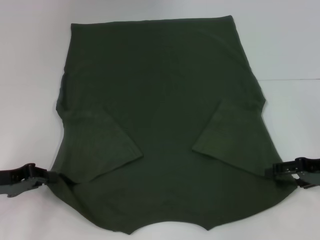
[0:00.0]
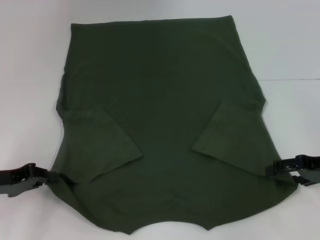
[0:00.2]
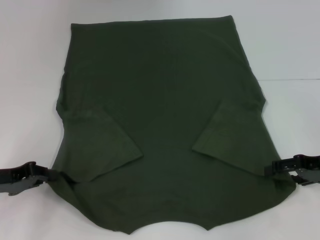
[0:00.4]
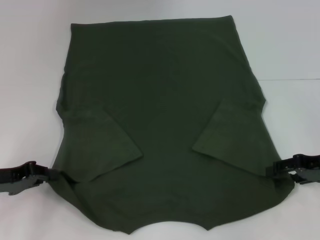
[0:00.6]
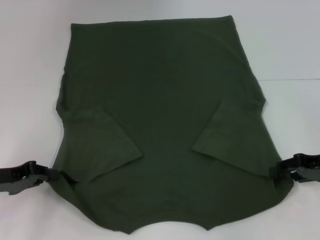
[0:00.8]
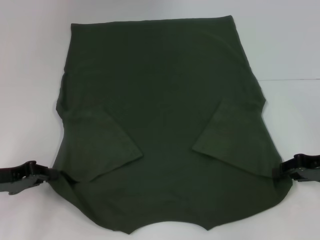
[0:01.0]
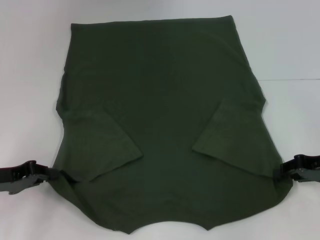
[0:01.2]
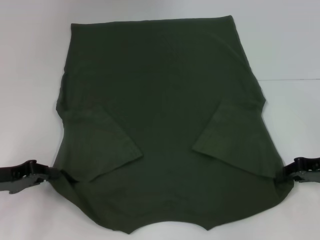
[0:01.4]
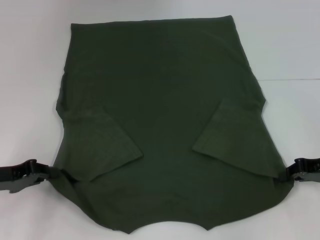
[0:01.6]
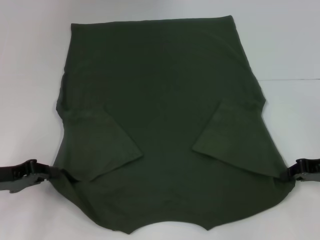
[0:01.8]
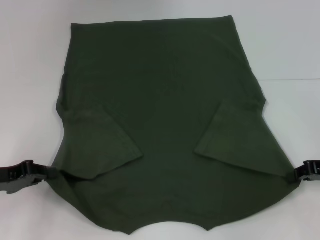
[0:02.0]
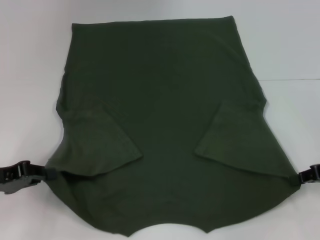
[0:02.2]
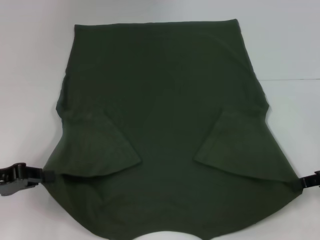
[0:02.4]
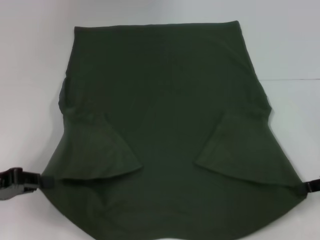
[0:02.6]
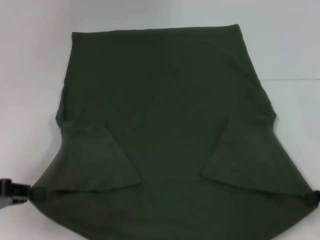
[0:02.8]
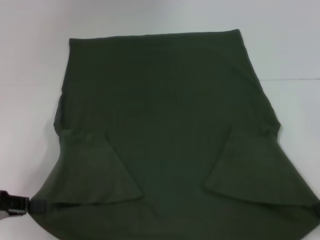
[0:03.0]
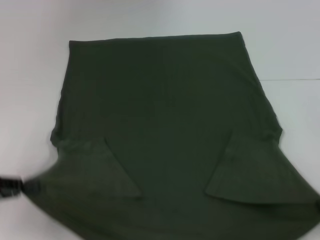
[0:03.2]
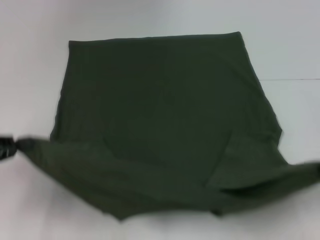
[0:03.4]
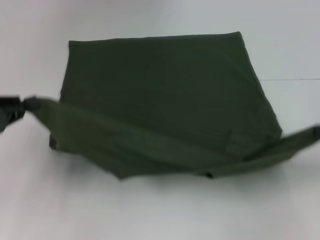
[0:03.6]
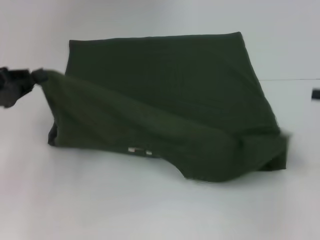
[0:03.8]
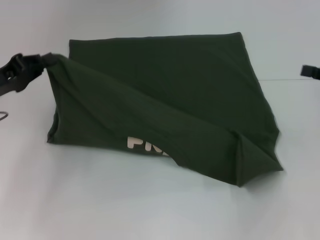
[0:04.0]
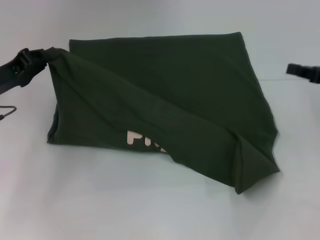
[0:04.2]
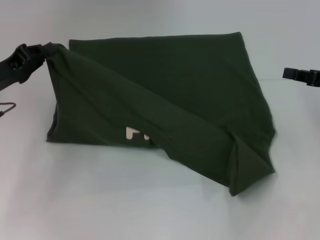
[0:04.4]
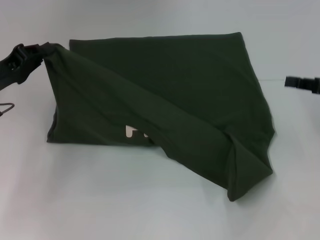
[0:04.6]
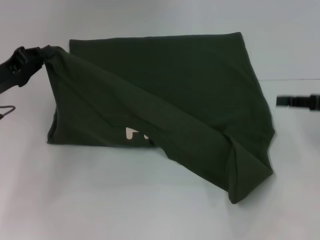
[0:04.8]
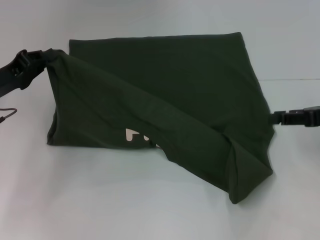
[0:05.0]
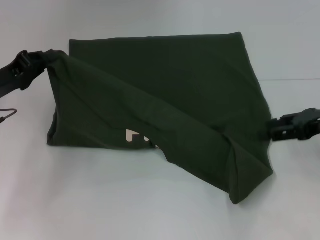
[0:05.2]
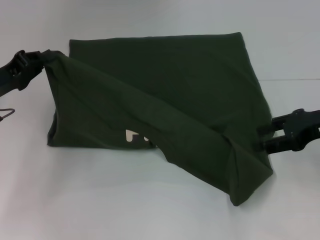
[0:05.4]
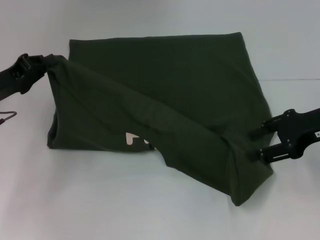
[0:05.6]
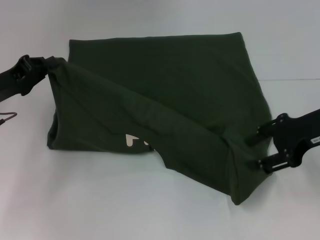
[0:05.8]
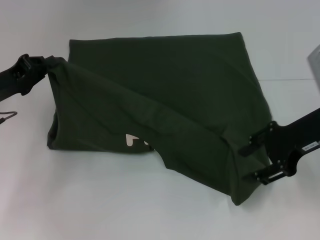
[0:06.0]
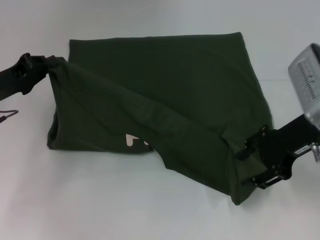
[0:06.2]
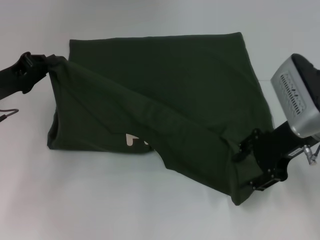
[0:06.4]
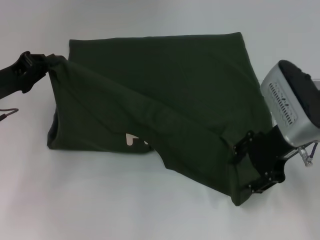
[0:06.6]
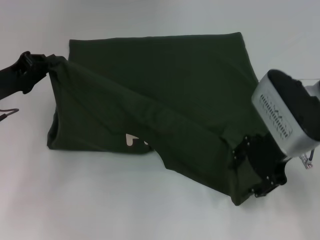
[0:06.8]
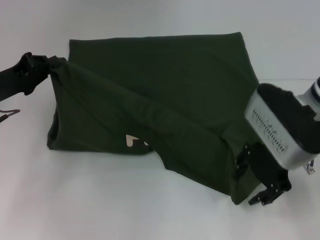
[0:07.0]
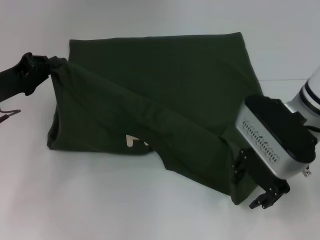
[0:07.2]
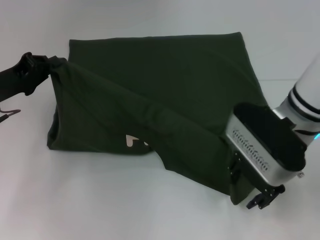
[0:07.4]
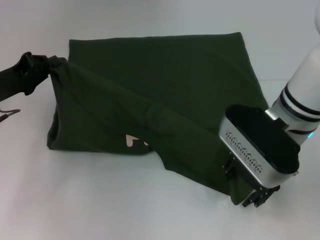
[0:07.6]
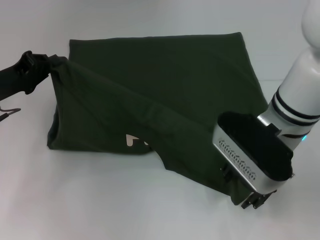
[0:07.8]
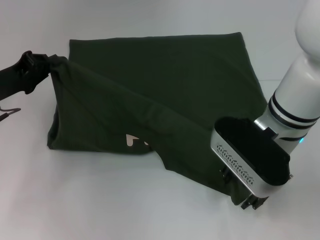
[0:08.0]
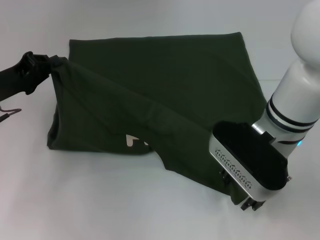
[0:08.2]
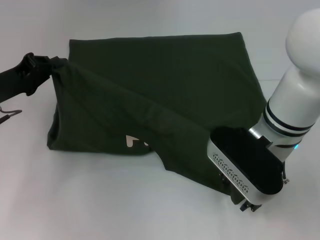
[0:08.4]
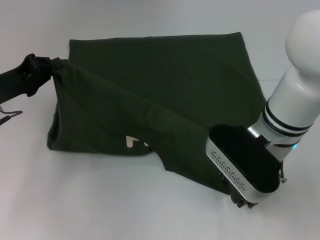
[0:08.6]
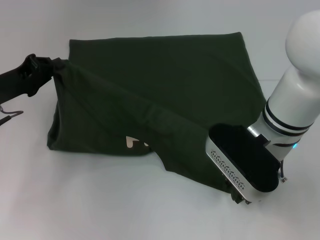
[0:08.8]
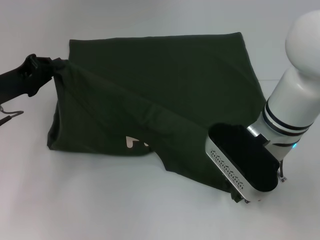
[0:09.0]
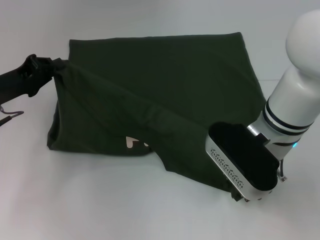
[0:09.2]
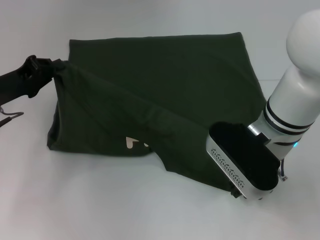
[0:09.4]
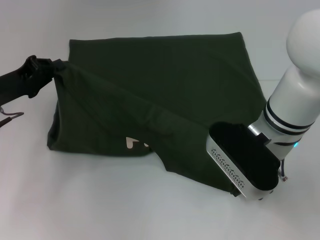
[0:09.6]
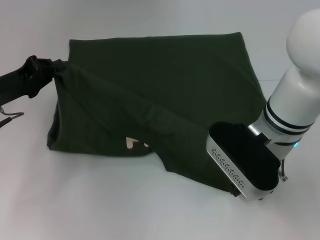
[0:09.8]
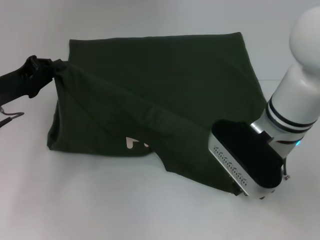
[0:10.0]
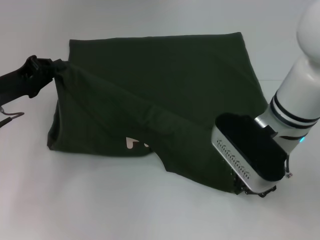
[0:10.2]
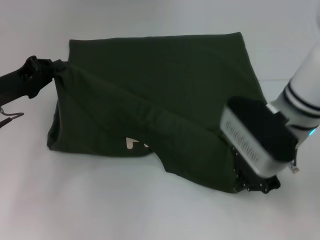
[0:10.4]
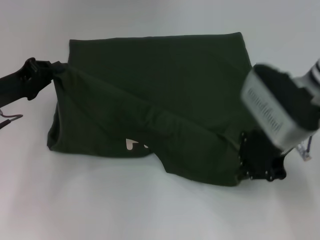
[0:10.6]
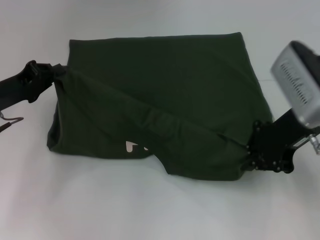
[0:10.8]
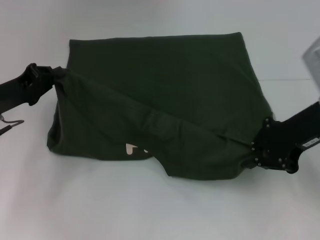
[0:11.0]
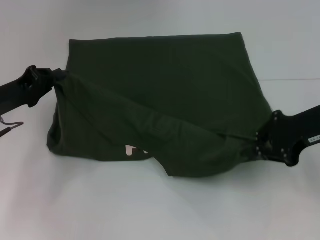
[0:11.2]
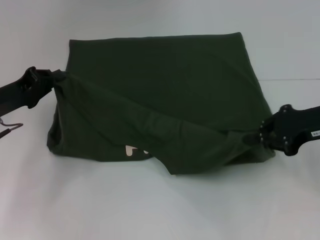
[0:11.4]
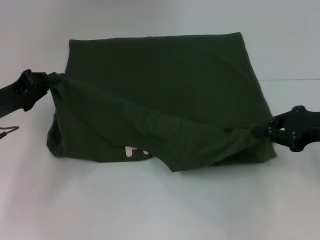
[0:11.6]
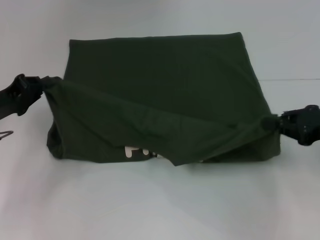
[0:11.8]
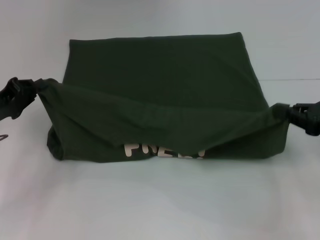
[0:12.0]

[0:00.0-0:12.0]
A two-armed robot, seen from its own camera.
0:00.0 to 0:01.6: The right gripper closes.
0:01.6 to 0:03.0: Both grippers travel together backward, roughly 5 cm.
0:03.0 to 0:04.4: Both grippers travel together forward, some 10 cm.
0:04.4 to 0:06.0: The right gripper moves to the left, roughly 10 cm, and opens.
0:06.0 to 0:07.6: The right gripper heads to the left, covering roughly 10 cm.
0:07.6 to 0:09.0: The grippers make only small movements.
0:09.0 to 0:10.4: The right gripper closes its fingers.
0:10.4 to 0:12.0: The right gripper goes about 20 cm to the right.

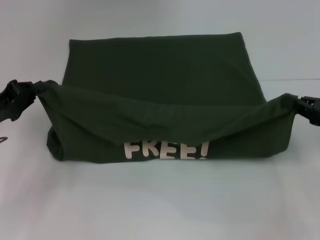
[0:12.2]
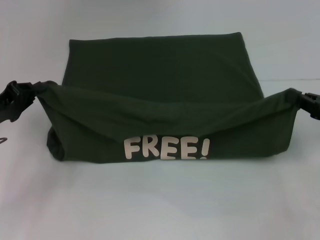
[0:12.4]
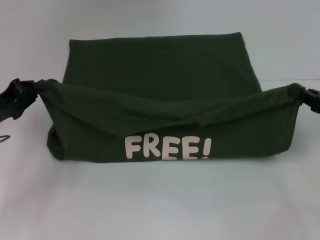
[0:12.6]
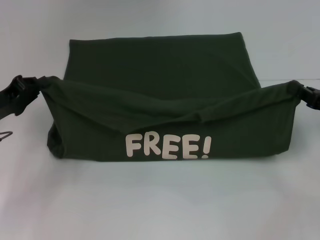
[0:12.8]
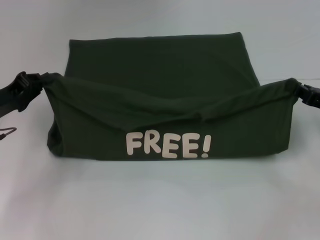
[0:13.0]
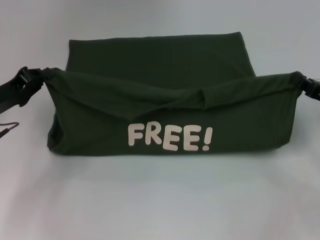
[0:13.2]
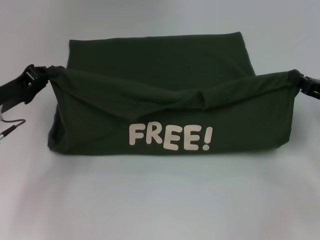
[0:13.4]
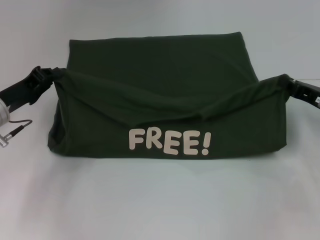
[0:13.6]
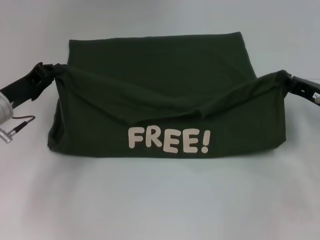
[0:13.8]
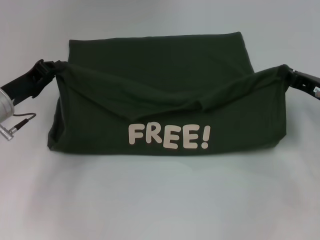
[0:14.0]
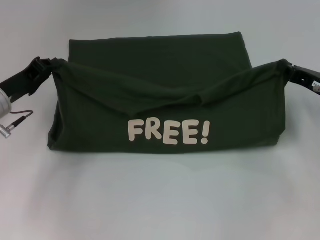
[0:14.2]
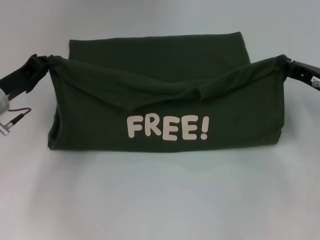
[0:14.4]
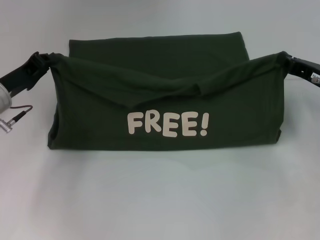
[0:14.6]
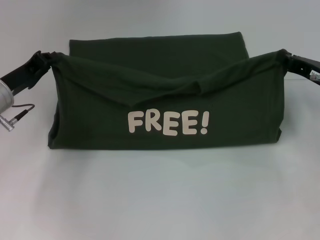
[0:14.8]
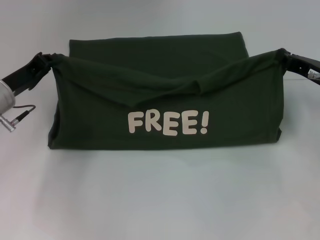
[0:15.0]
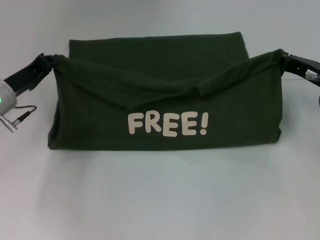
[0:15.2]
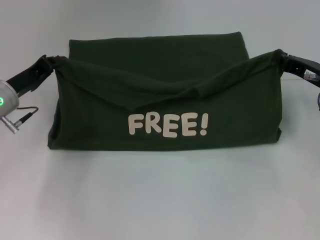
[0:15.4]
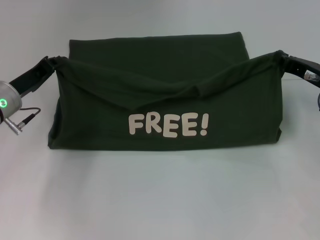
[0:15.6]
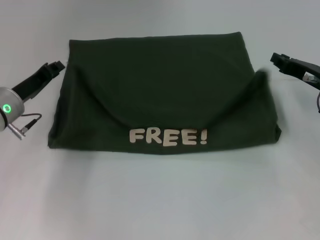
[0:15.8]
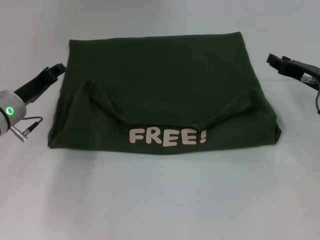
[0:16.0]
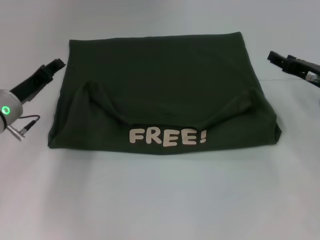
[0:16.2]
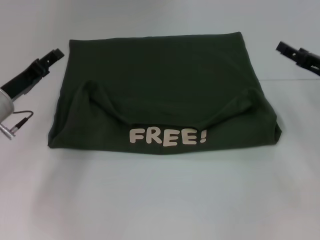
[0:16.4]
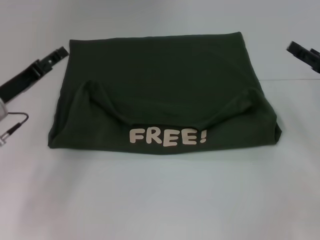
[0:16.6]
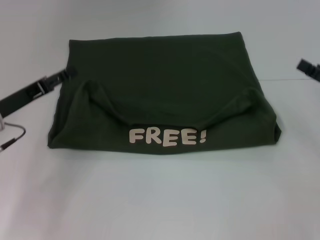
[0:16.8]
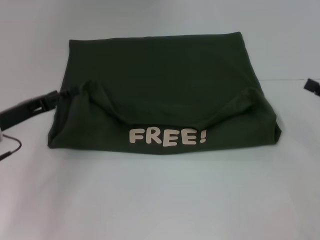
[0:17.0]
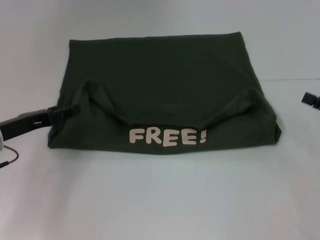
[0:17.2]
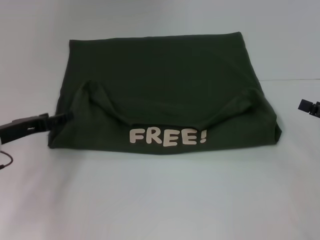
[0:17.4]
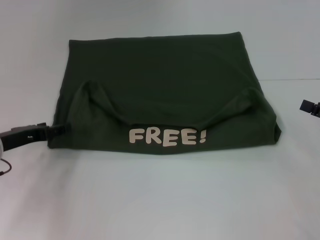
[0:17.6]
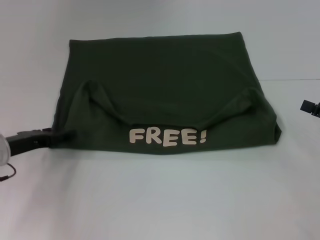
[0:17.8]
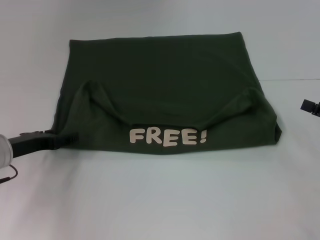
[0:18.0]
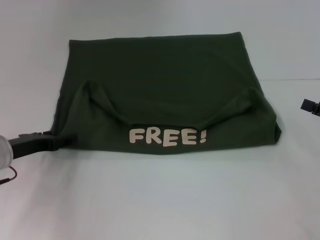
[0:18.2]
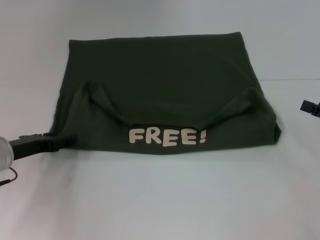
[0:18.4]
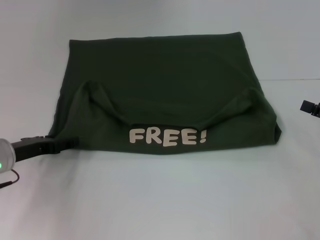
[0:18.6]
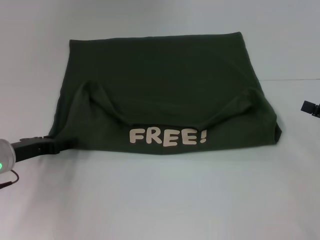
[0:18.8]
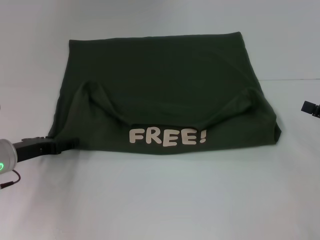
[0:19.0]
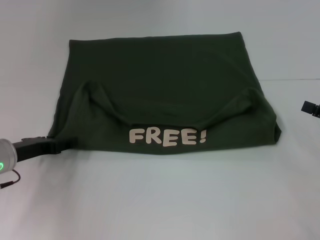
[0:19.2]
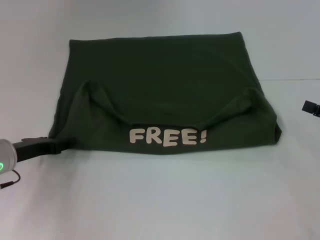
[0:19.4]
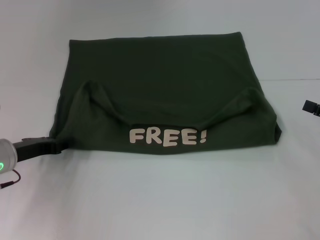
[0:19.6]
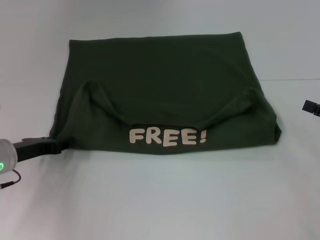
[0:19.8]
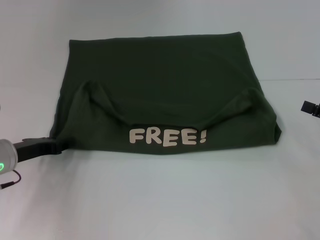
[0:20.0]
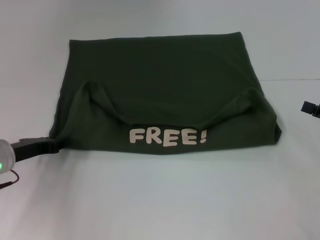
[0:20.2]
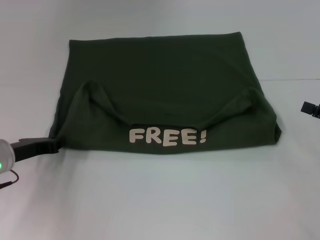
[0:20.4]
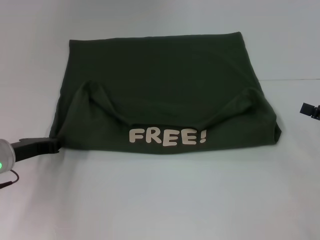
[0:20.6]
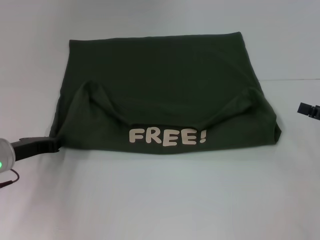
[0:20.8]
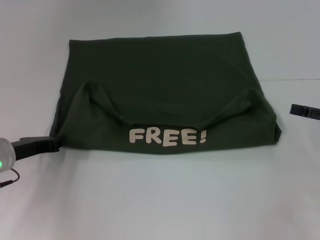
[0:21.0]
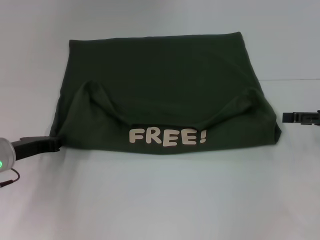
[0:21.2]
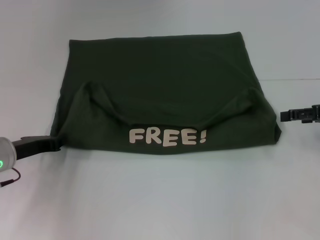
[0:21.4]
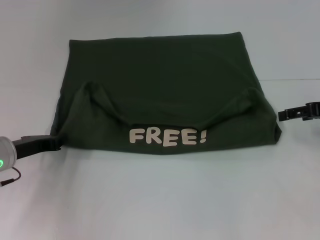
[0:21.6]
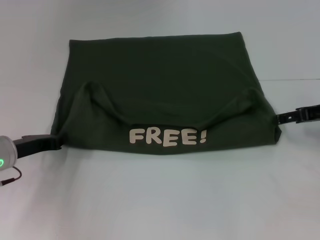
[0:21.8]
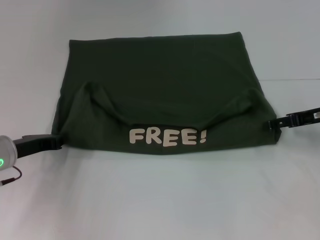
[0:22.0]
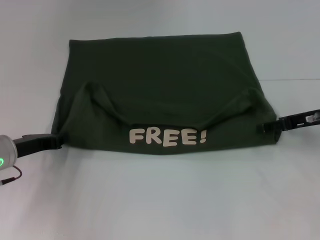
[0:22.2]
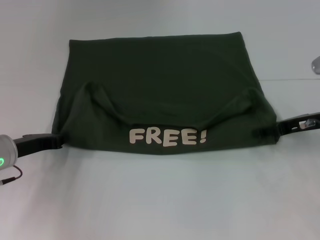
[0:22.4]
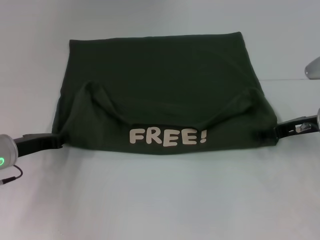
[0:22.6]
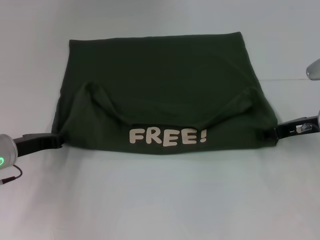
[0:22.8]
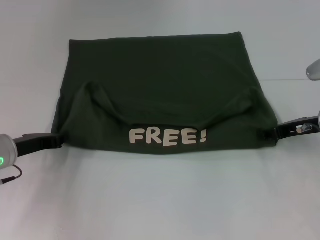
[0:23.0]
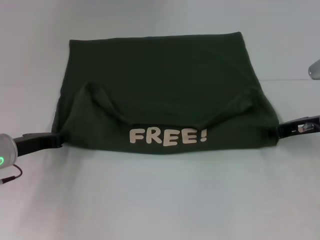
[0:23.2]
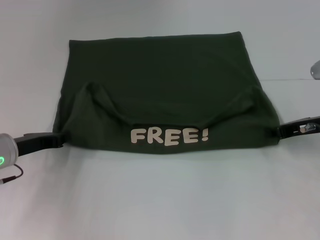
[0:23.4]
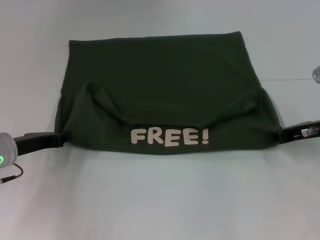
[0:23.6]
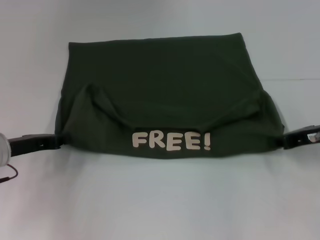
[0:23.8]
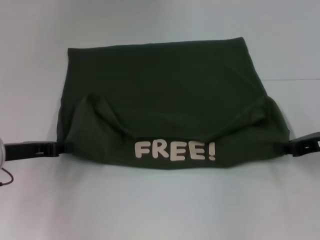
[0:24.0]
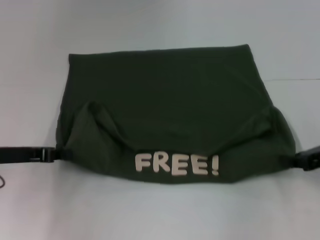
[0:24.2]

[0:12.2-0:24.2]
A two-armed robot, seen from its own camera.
Step, 0:12.2 to 0:16.4: Fold the clothes with your left hand.
Step, 0:12.2 to 0:16.4: Fold the clothes with your right hand.
0:12.2 to 0:13.8: The left gripper ends up approximately 5 cm from where it was. The right gripper moves about 5 cm.
0:13.8 to 0:15.2: There are only small adjustments of the grippers.
0:15.2 to 0:16.6: The left gripper opens. Meanwhile the right gripper changes place by some 5 cm, and opens.
0:16.6 to 0:18.2: The left gripper changes place by some 5 cm; the right gripper goes approximately 5 cm backward.
0:18.2 to 0:19.8: The left gripper closes.
0:19.8 to 0:21.2: The left gripper closes its fingers. Meanwhile the right gripper moves approximately 5 cm.
0:21.2 to 0:22.6: The right gripper travels to the left by some 10 cm.
0:22.6 to 0:24.2: The right gripper is displaced backward by some 5 cm, and closes.
